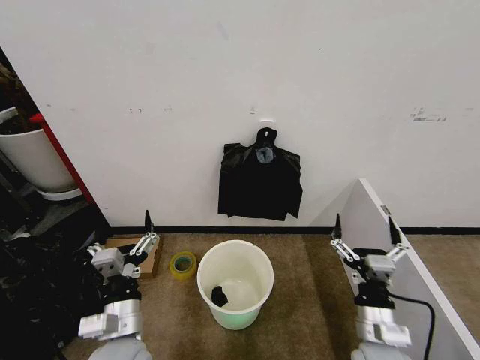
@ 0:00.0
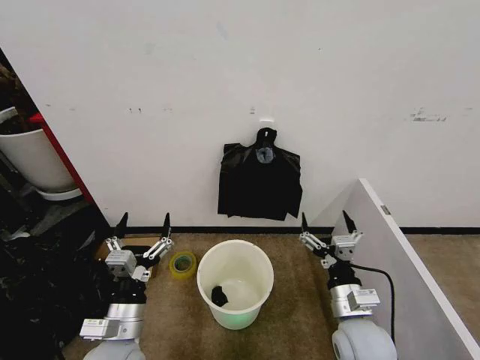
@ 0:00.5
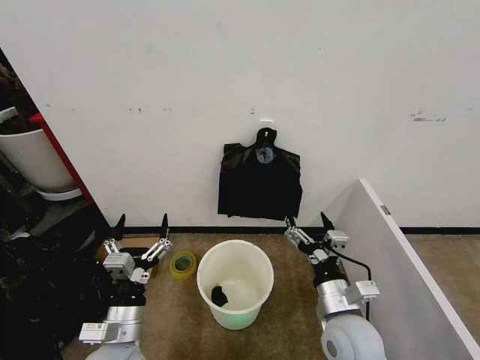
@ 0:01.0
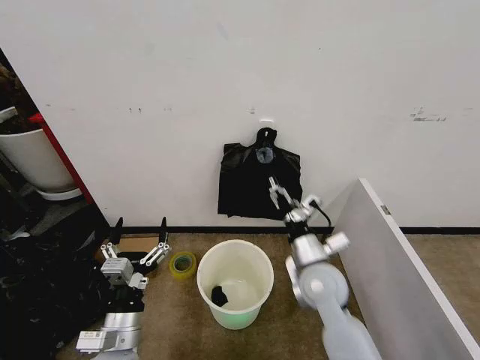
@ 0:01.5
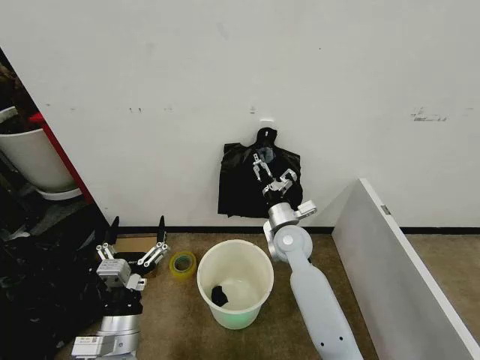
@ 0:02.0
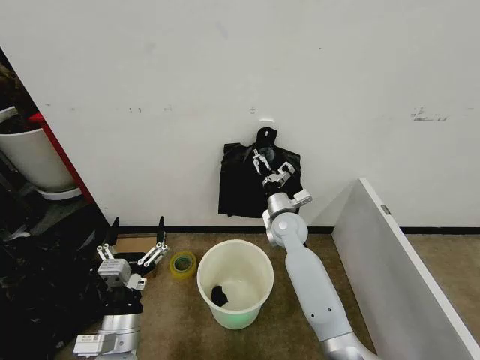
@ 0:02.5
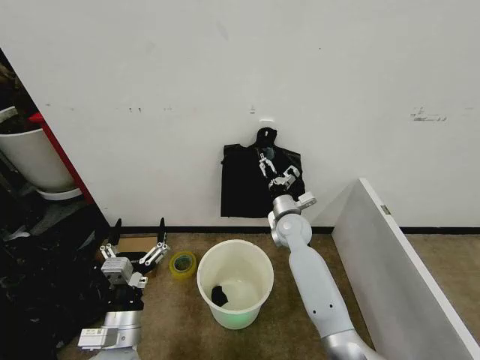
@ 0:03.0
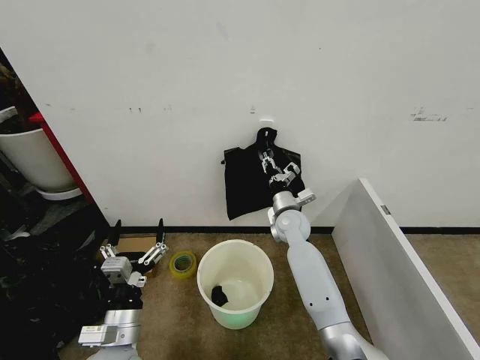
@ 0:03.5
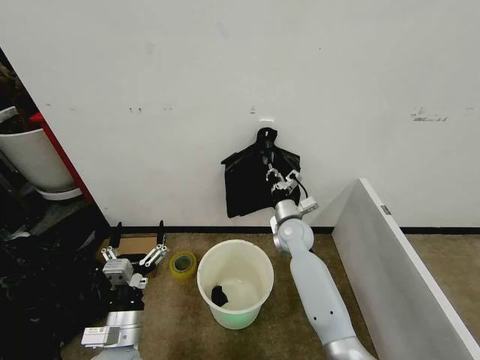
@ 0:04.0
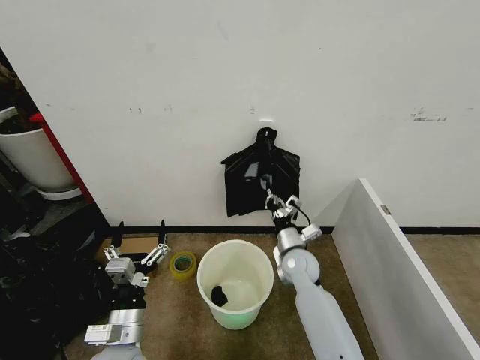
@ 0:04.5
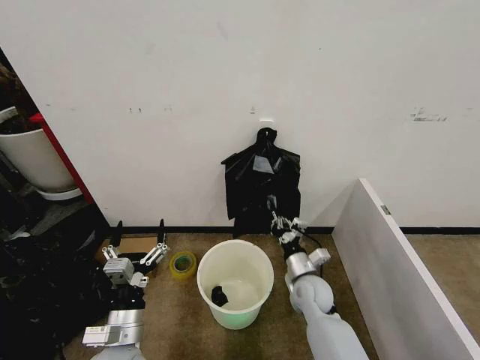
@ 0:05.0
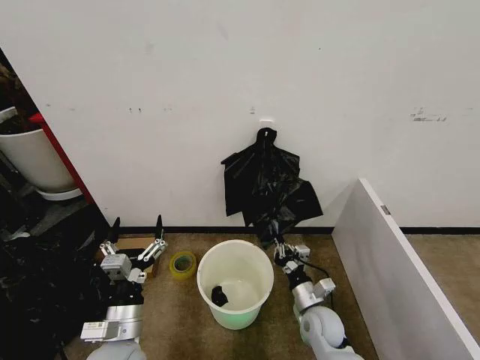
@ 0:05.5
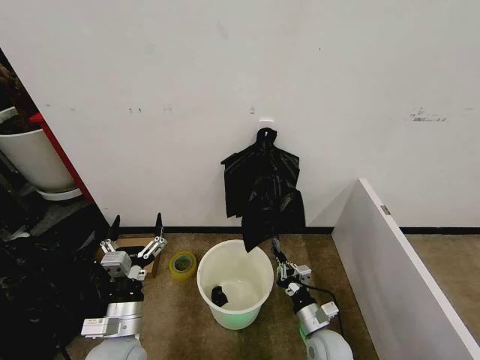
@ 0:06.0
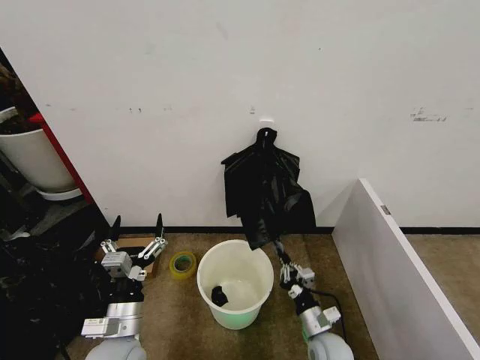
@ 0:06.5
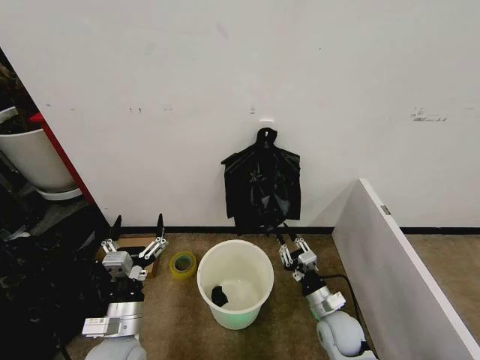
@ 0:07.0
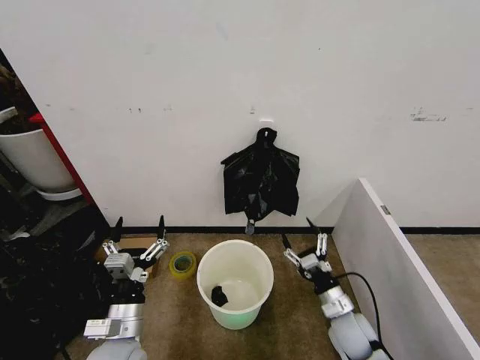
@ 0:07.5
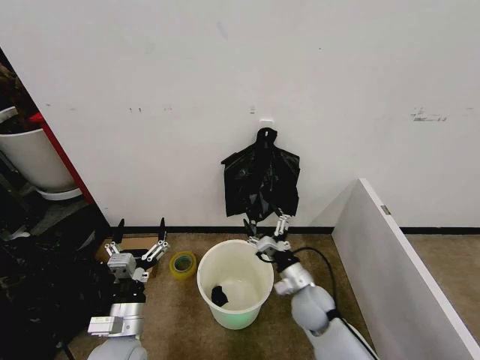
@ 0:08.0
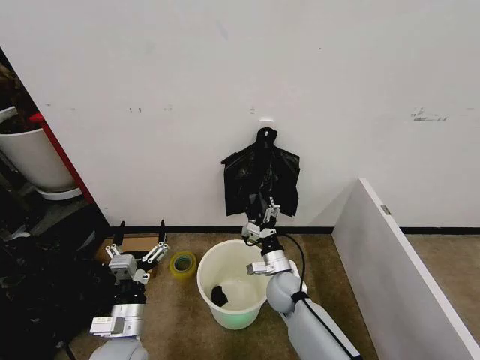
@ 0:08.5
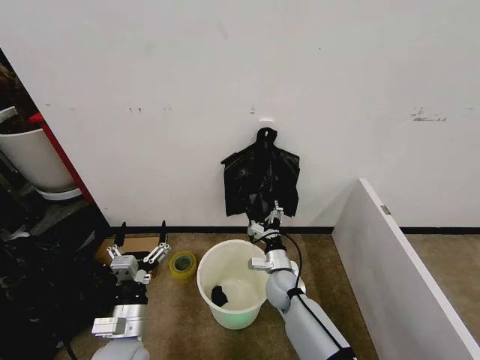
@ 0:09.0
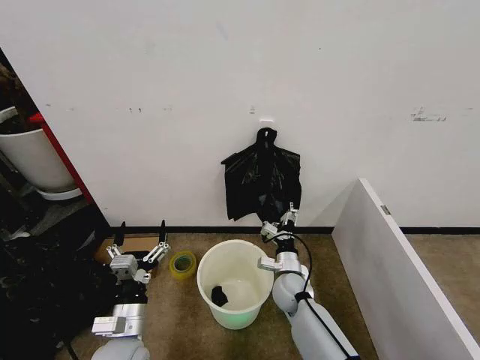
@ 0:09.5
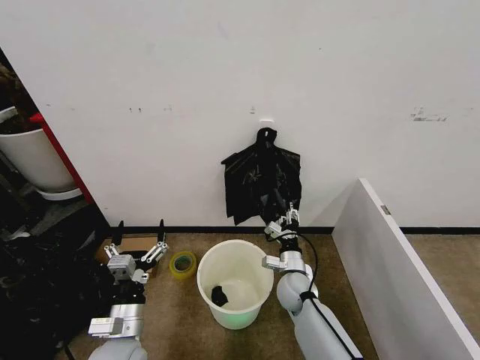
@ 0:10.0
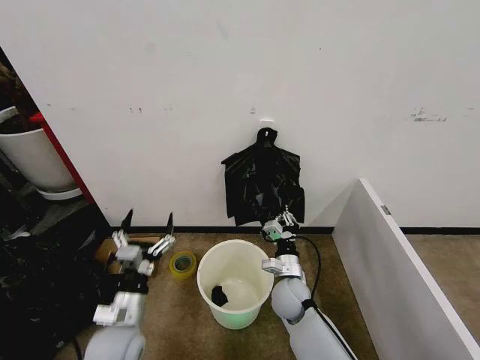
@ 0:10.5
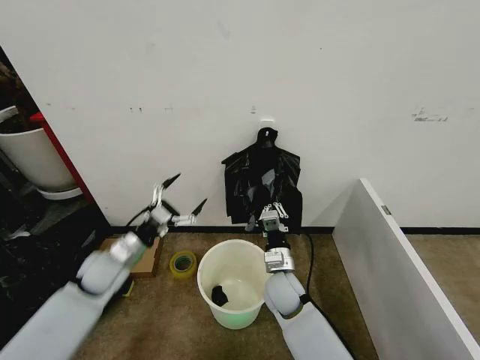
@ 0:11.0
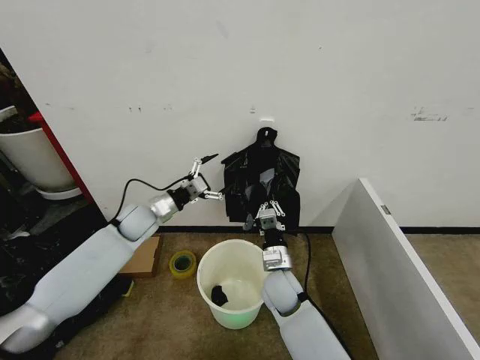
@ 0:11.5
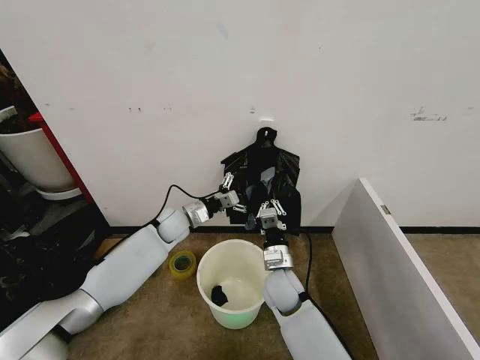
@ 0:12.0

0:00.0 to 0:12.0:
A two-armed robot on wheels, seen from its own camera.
Task of the whole recording: Place the garbage bag over the trash bin.
0:02.0 to 0:04.0: The right gripper changes place by some 5 cm, and closes its fingers.
0:04.0 to 0:06.0: The right gripper shifts approximately 25 cm backward and downward.
0:06.0 to 0:08.0: The right gripper goes about 10 cm forward and upward, and opens.
0:08.0 to 0:10.0: The right gripper heads forward, covering about 5 cm, and closes.
0:10.0 to 0:12.0: The left gripper goes some 30 cm forward. The right gripper goes approximately 5 cm upward, and closes.

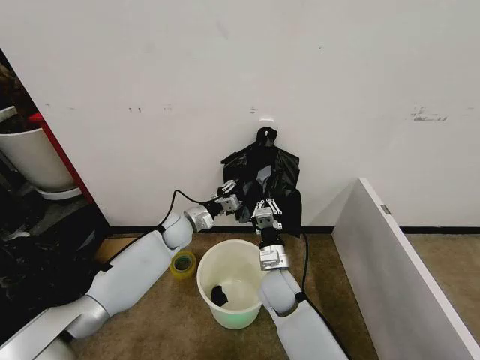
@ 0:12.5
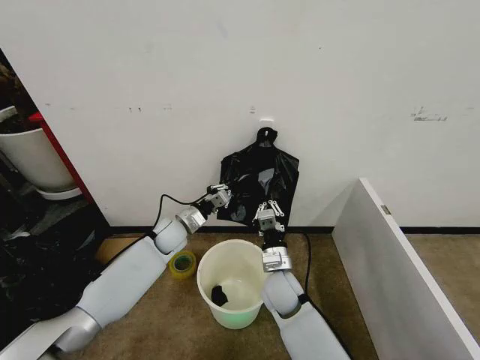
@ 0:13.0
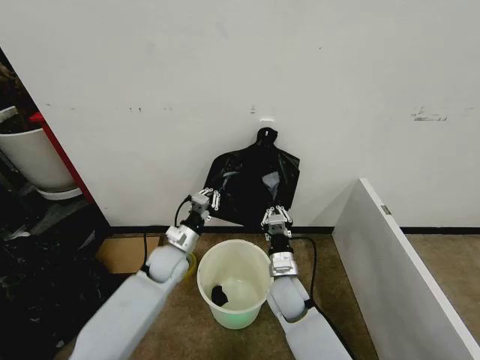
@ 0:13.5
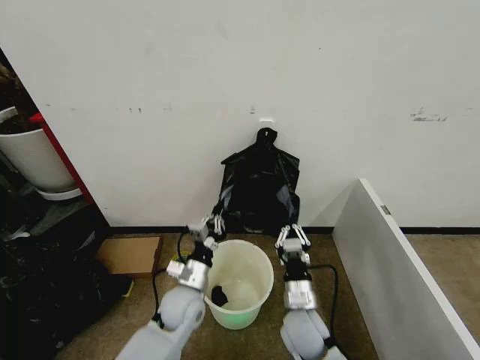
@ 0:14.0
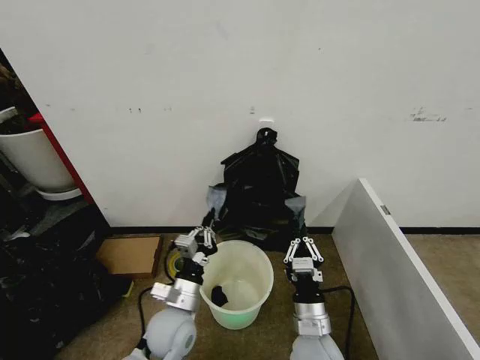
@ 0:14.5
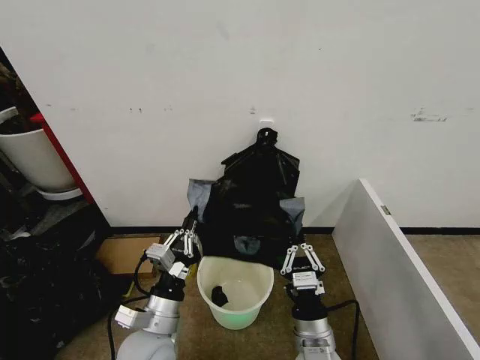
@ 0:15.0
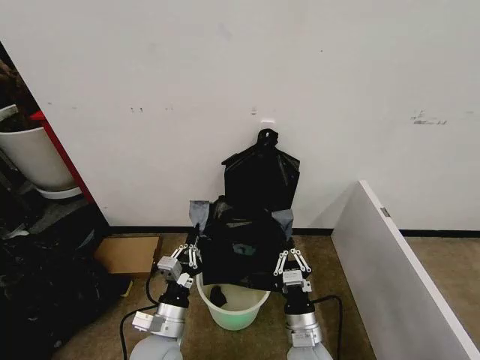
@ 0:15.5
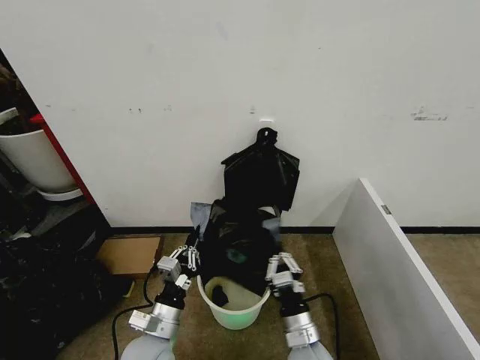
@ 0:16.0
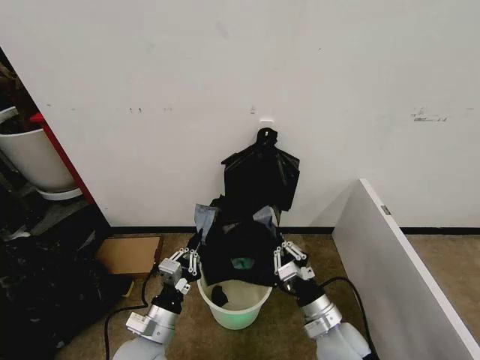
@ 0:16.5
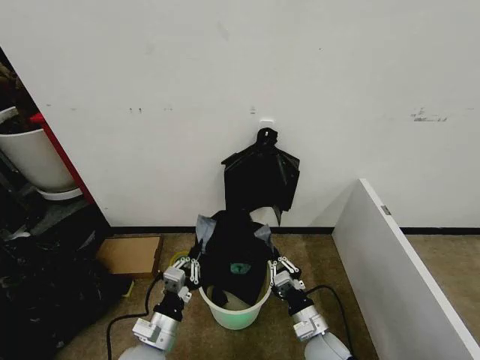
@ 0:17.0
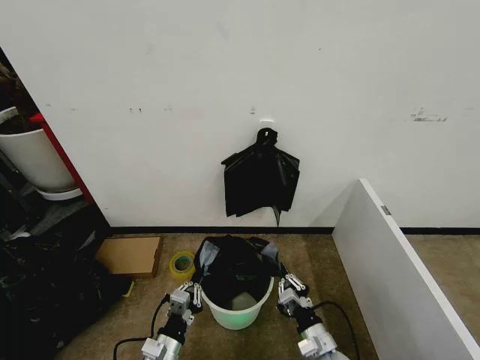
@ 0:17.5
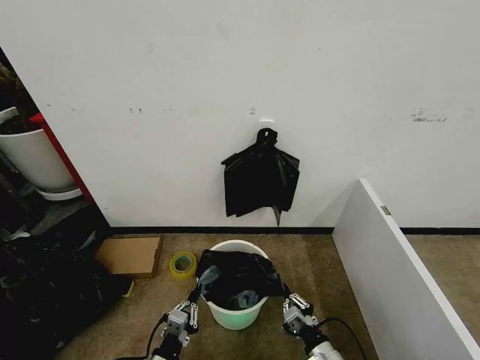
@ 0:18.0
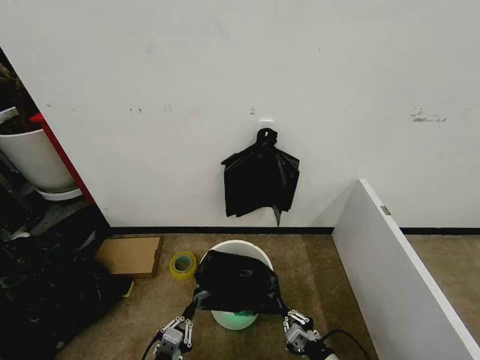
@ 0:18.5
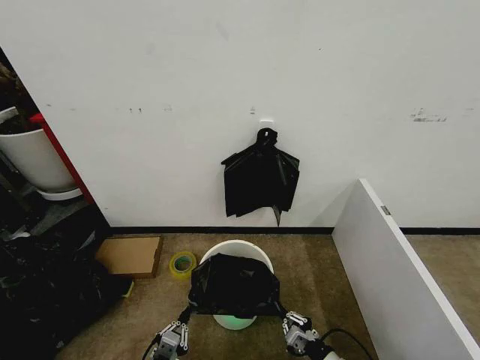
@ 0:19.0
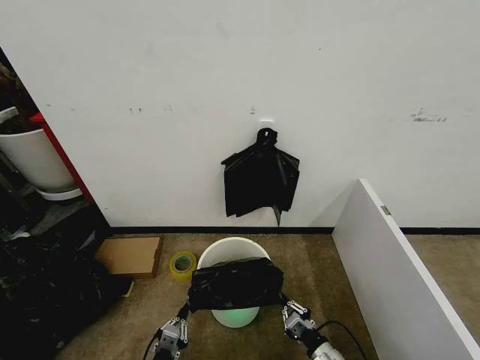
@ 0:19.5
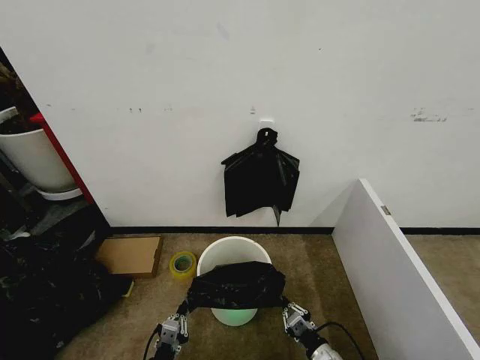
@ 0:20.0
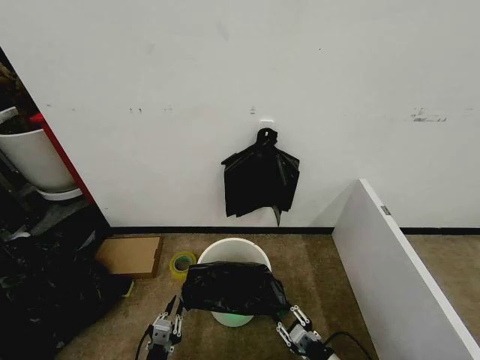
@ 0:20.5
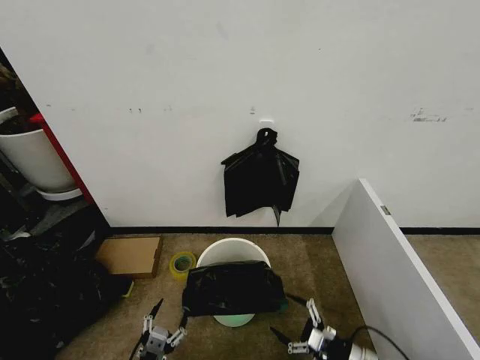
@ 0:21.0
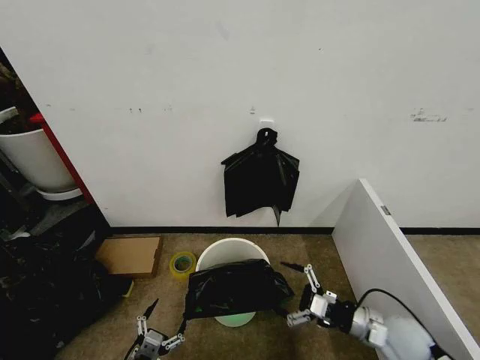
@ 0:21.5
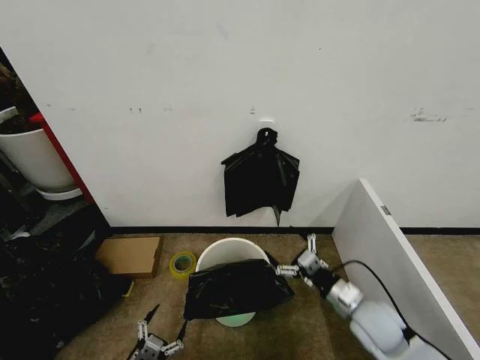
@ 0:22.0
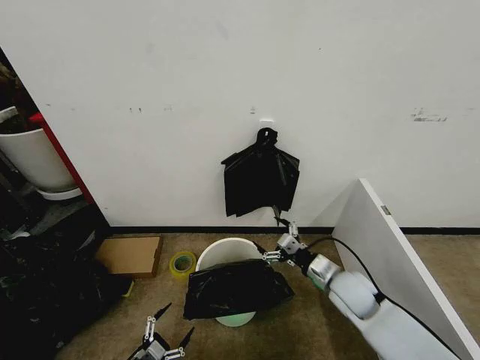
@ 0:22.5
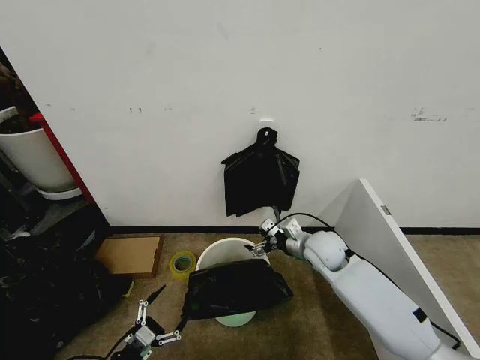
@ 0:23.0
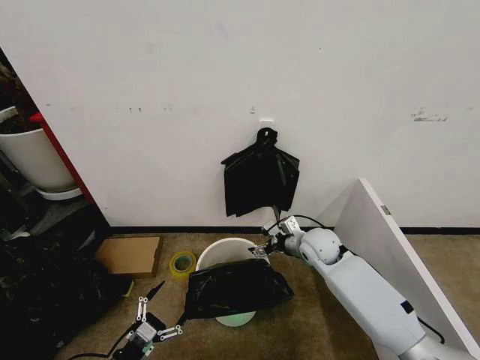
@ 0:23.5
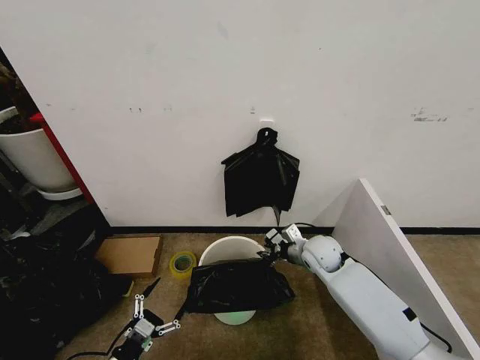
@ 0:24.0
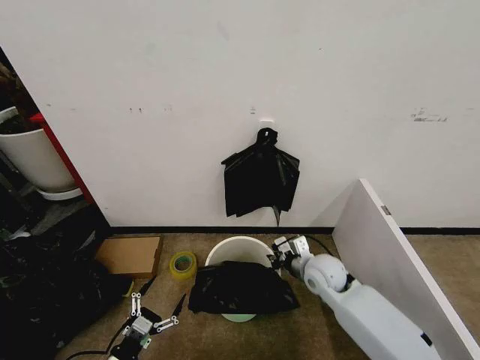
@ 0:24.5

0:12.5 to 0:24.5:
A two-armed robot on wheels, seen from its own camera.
Task of the whole recording: Place the garbage bag over the trash bin.
0:12.5 to 0:14.5: The right gripper is displaced backward and to the right by some 15 cm; the left gripper moves backward, some 25 cm, and closes its fingers.
0:14.5 to 0:16.5: The right gripper heads to the right, covering roughly 5 cm; the left gripper heads backward, covering approximately 5 cm.
0:16.5 to 0:18.5: The right gripper travels downward, backward and to the right by roughly 15 cm. Meanwhile the left gripper heads backward and downward, covering some 15 cm.
0:18.5 to 0:20.5: The grippers move only a little.
0:20.5 to 0:22.5: The left gripper shifts roughly 10 cm to the left, and opens its fingers. The right gripper moves forward and upward, roughly 25 cm, and opens up.
0:22.5 to 0:24.5: The left gripper changes place by about 5 cm. The right gripper closes up.

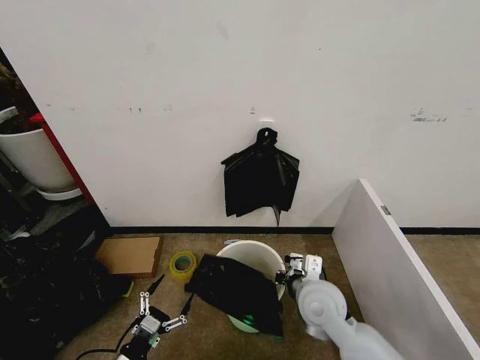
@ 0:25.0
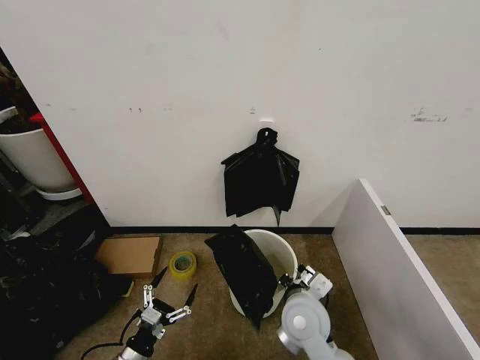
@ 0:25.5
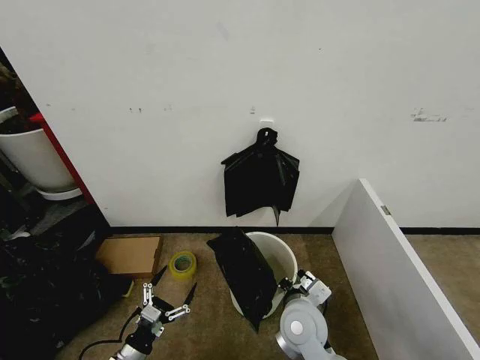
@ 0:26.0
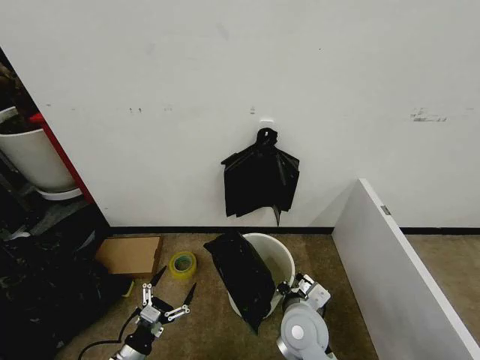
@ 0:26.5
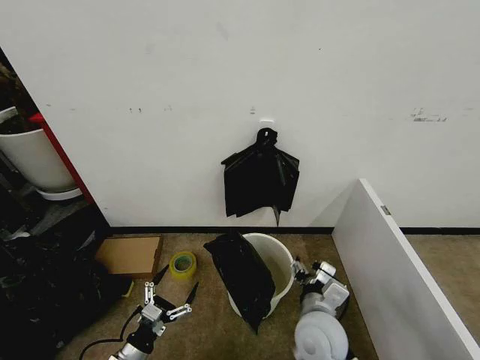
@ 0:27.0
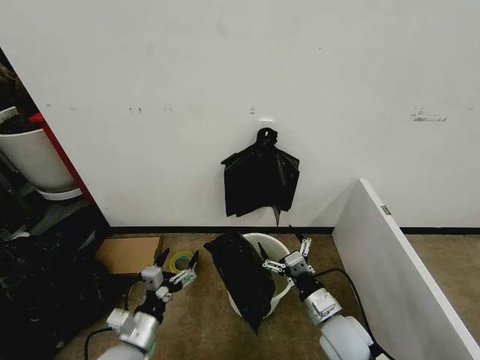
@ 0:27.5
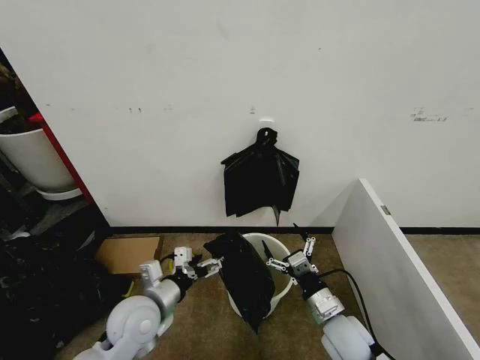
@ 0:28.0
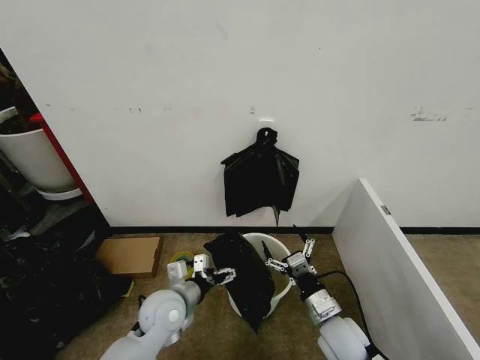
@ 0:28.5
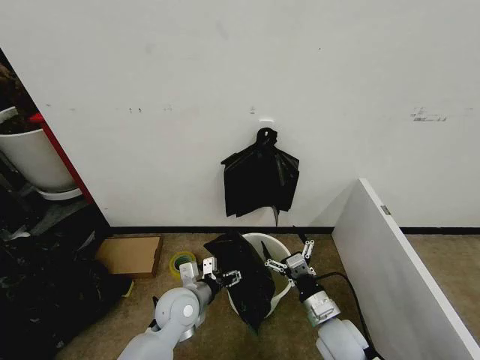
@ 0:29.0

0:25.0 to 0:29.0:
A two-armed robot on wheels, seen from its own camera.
Task of the whole recording: Place the garbage bag over the trash bin.
0:25.0 to 0:27.0: The right gripper is displaced backward by roughly 5 cm, and opens.
0:27.0 to 0:29.0: The right gripper travels downward and to the right by about 10 cm; the left gripper moves to the right, forward and upward, some 20 cm.
